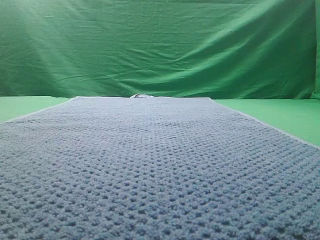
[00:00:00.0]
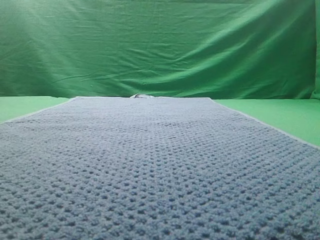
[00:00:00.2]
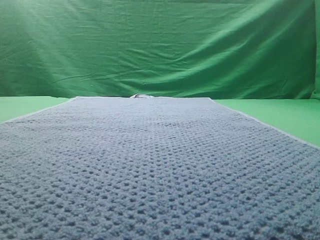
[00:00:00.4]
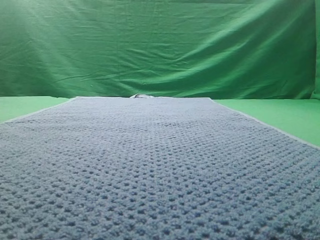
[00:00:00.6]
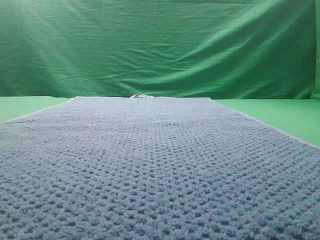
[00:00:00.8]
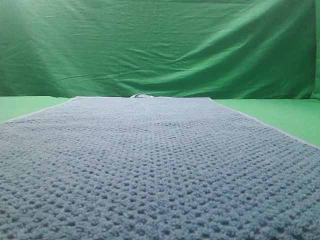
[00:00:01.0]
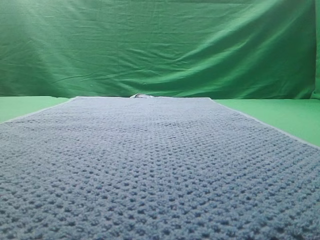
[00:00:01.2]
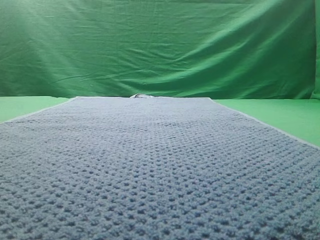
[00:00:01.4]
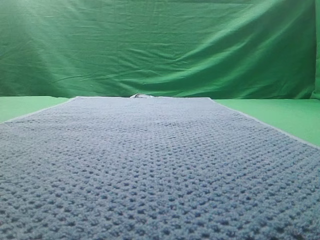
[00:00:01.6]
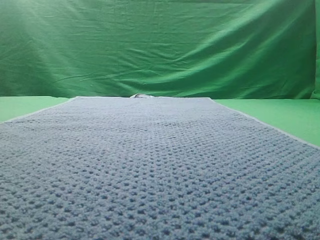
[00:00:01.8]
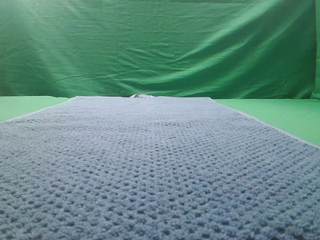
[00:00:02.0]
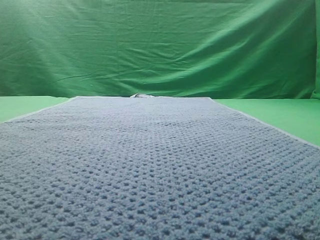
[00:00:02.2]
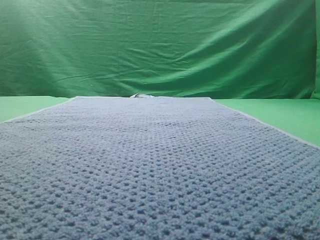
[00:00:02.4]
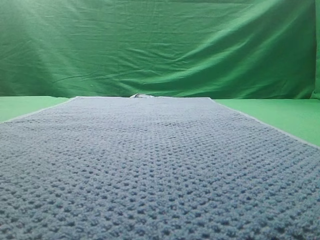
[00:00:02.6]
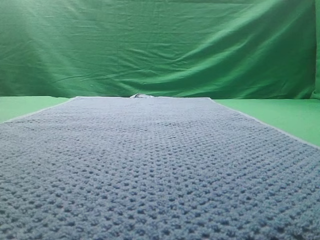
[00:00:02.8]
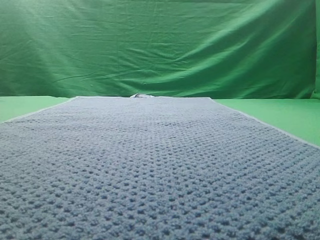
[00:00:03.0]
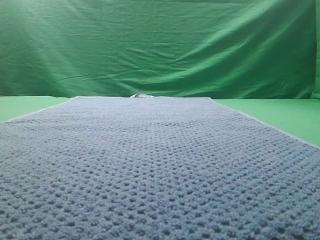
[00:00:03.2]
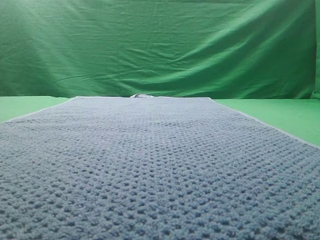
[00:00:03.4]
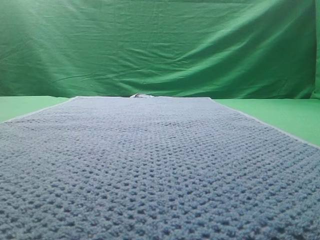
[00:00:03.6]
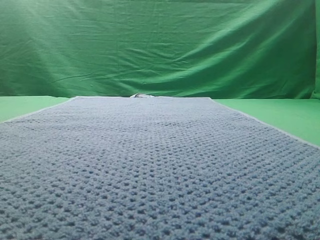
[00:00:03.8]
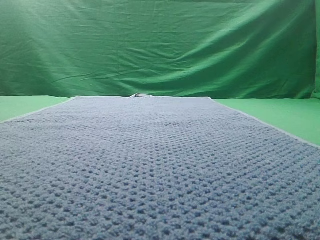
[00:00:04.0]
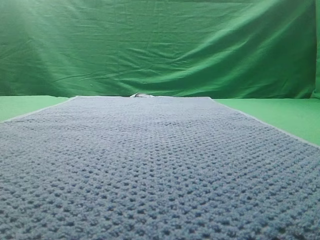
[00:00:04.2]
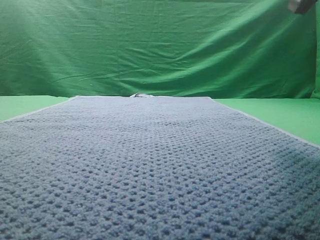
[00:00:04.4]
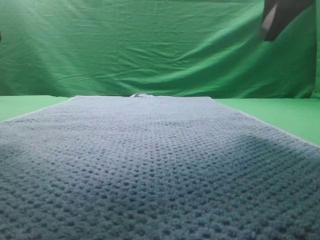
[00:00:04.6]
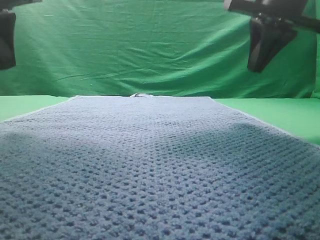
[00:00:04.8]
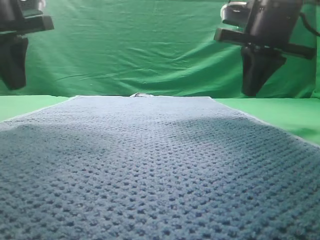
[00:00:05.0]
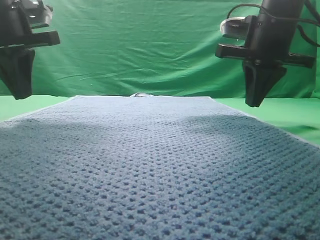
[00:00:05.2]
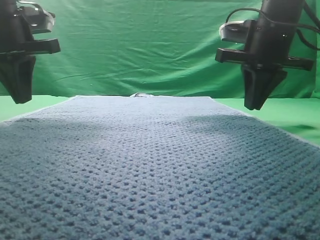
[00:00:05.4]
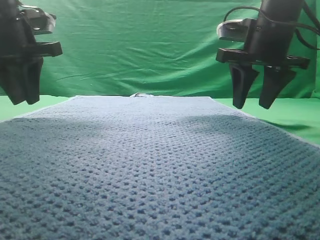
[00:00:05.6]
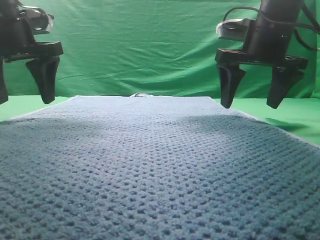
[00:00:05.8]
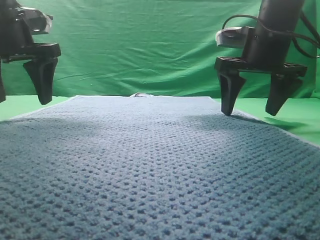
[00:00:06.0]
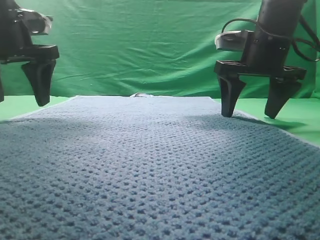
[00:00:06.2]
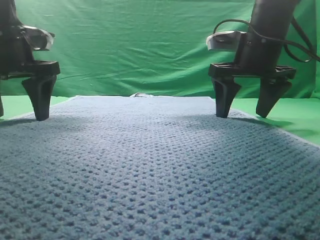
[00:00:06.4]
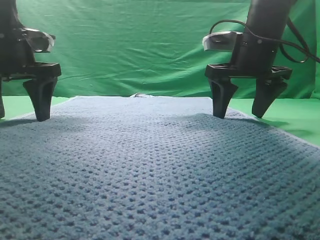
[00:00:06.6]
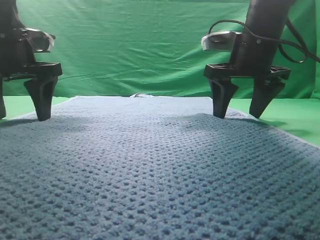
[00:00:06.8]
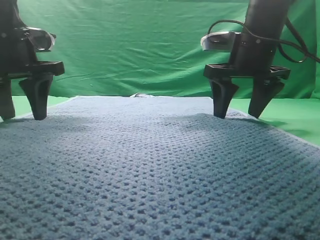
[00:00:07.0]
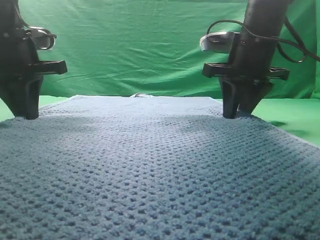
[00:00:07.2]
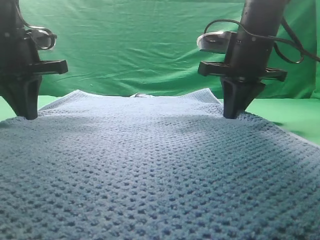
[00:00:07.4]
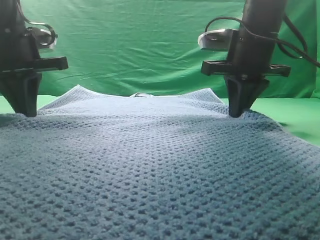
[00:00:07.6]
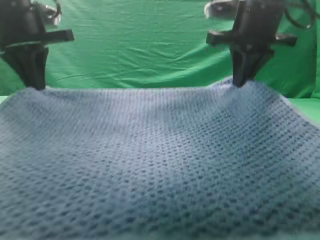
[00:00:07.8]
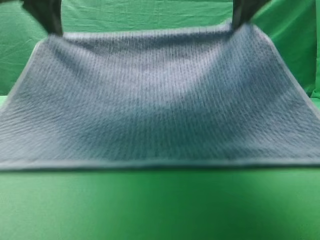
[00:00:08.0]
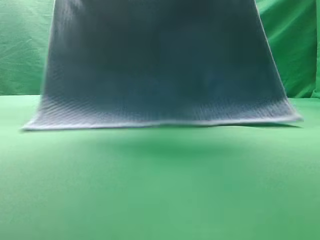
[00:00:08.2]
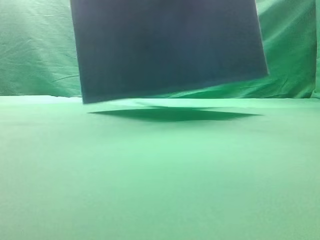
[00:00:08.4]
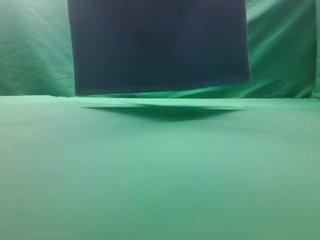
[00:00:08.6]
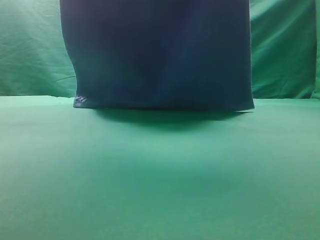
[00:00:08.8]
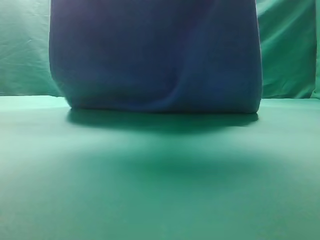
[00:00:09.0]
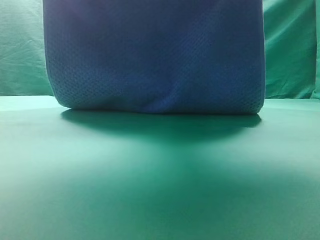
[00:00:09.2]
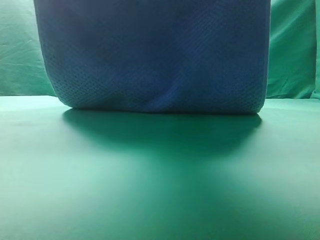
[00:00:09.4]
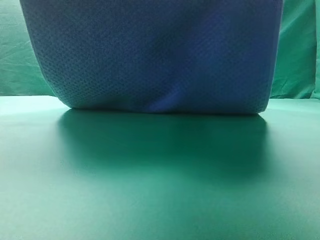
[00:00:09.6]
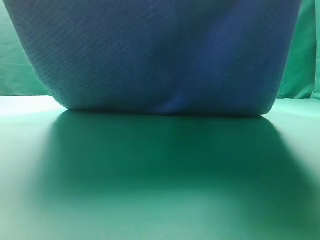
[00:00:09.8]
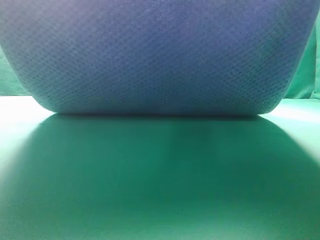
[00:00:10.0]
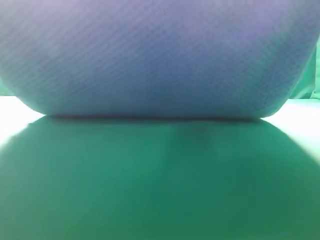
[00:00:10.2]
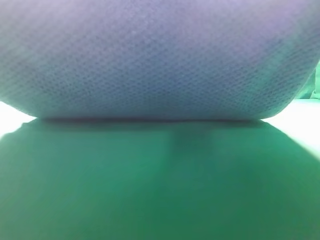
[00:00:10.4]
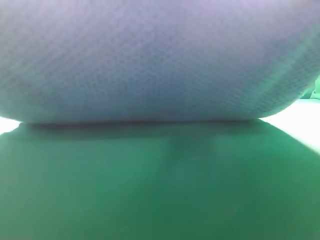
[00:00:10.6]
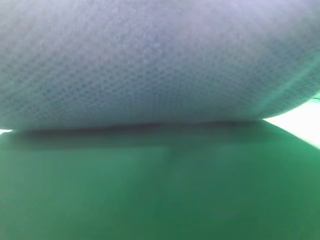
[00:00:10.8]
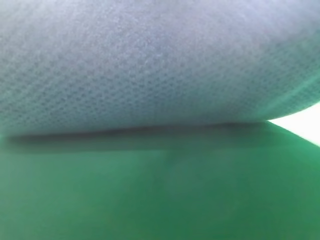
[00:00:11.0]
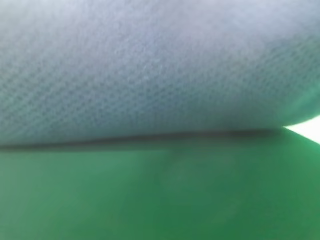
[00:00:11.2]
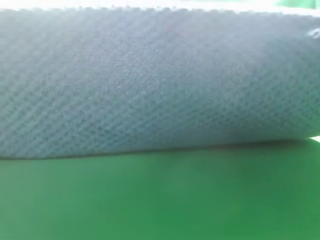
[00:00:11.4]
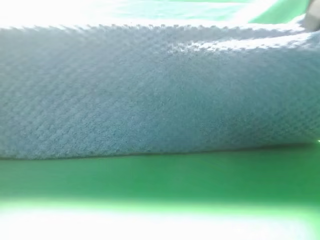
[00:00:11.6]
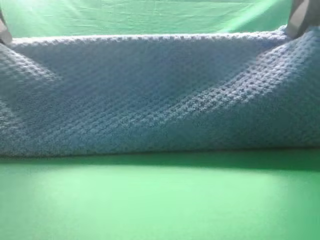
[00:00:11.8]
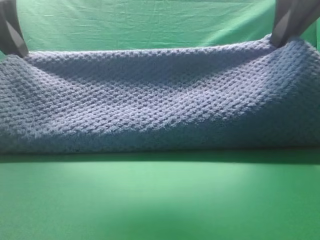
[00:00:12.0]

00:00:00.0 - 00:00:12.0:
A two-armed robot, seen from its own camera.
Task of the whole recording: fold the towel on the table twice.
Step, 00:00:00.0 - 00:00:08.6: pick up the towel with two arm.

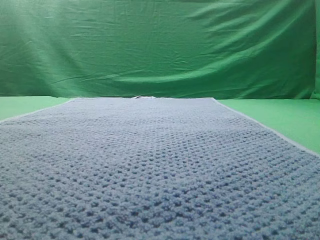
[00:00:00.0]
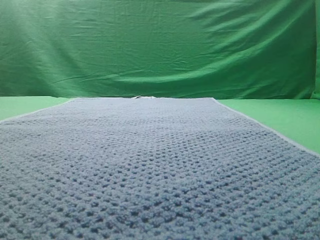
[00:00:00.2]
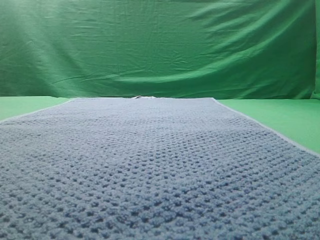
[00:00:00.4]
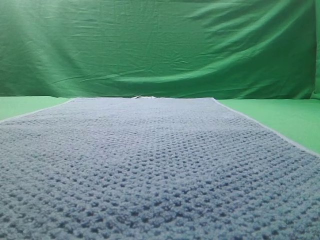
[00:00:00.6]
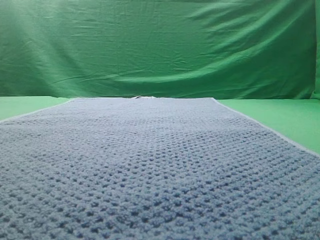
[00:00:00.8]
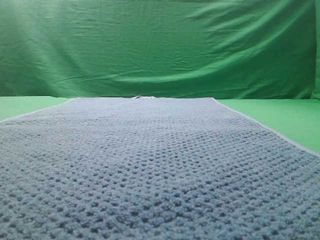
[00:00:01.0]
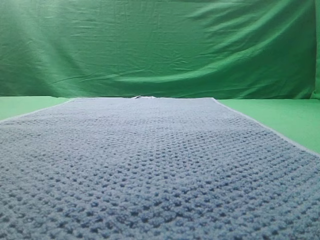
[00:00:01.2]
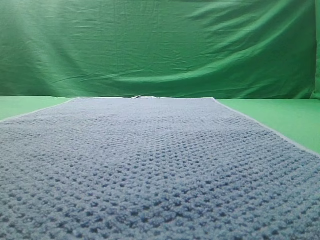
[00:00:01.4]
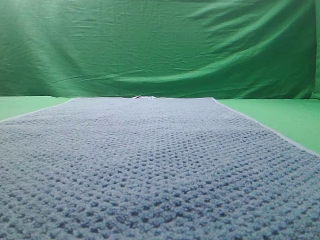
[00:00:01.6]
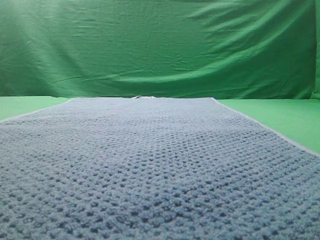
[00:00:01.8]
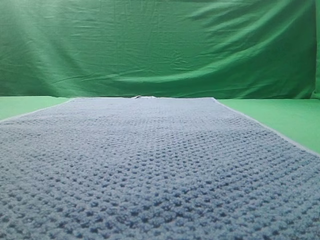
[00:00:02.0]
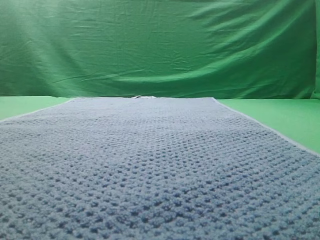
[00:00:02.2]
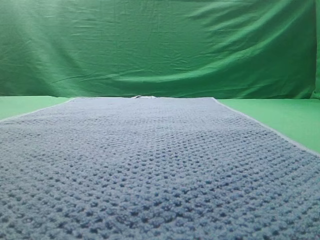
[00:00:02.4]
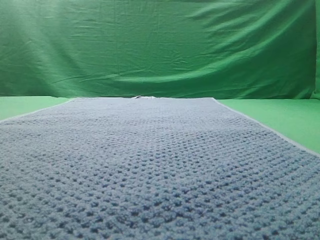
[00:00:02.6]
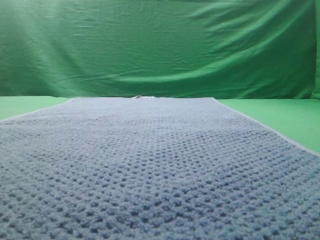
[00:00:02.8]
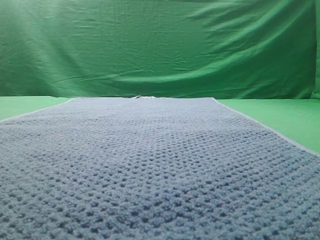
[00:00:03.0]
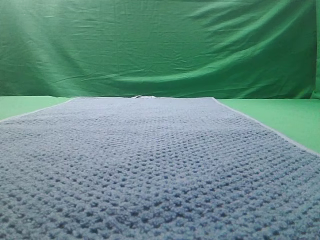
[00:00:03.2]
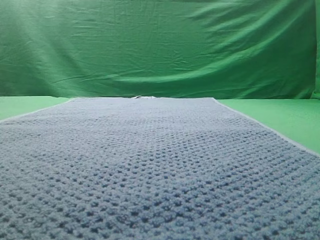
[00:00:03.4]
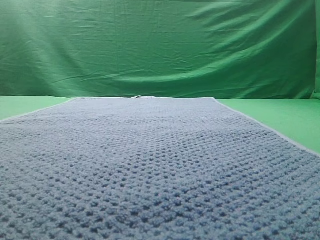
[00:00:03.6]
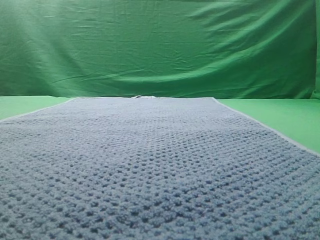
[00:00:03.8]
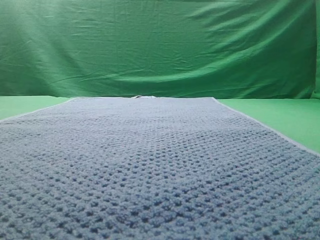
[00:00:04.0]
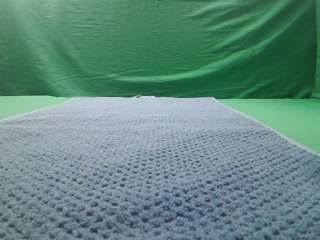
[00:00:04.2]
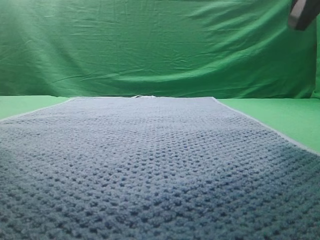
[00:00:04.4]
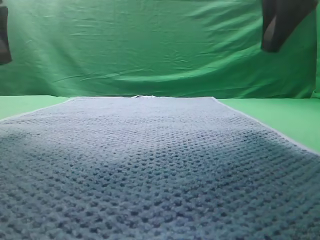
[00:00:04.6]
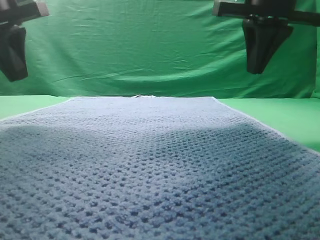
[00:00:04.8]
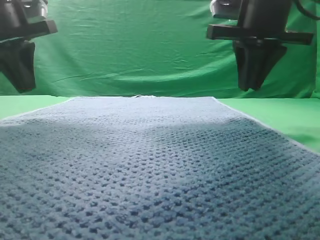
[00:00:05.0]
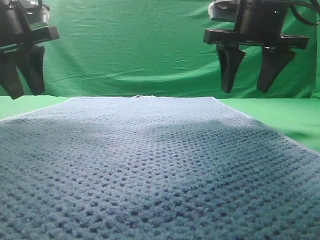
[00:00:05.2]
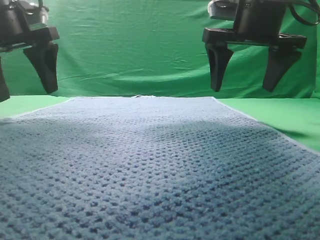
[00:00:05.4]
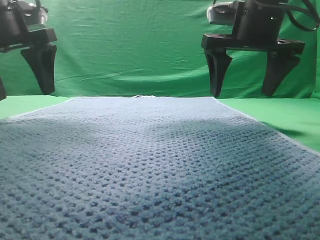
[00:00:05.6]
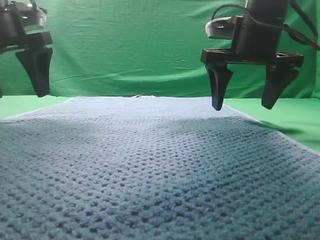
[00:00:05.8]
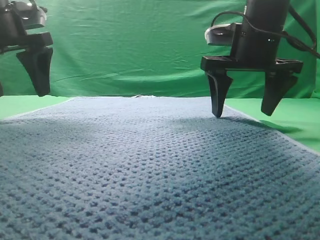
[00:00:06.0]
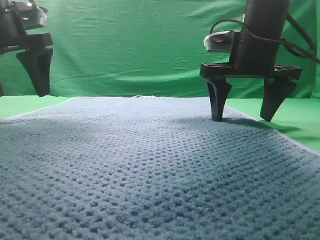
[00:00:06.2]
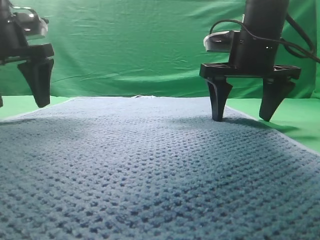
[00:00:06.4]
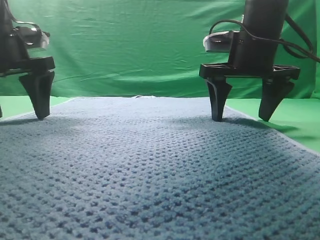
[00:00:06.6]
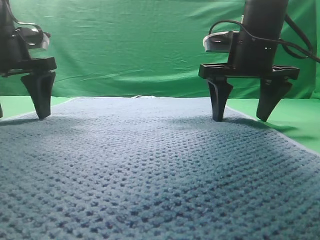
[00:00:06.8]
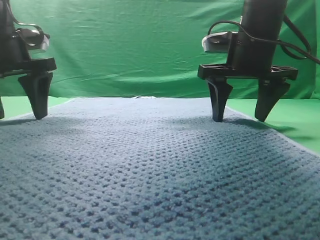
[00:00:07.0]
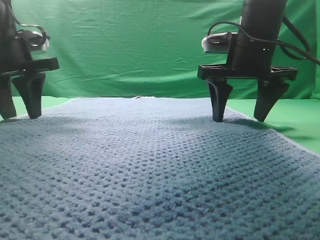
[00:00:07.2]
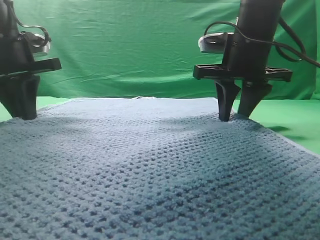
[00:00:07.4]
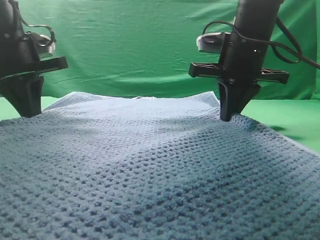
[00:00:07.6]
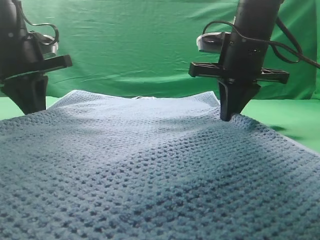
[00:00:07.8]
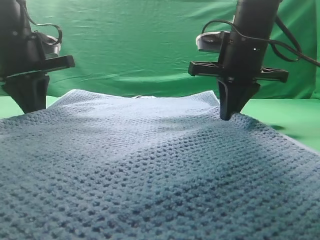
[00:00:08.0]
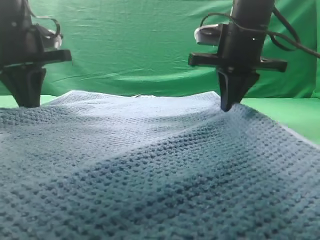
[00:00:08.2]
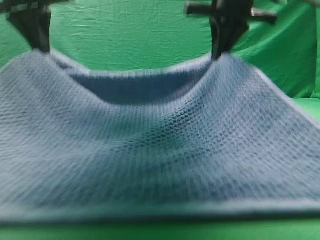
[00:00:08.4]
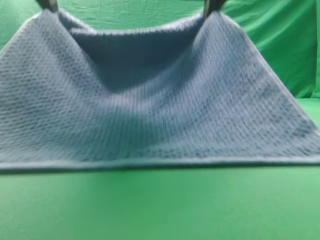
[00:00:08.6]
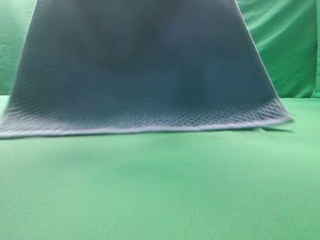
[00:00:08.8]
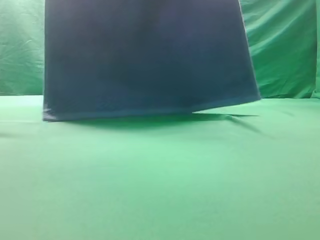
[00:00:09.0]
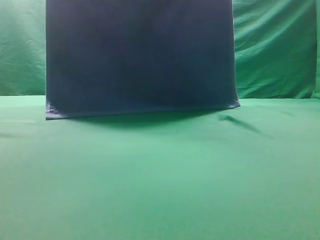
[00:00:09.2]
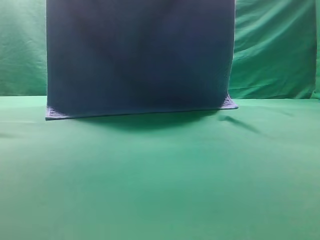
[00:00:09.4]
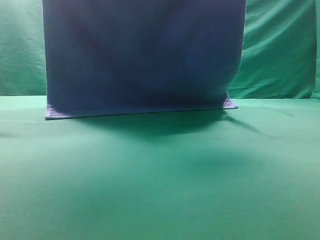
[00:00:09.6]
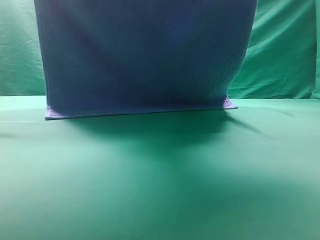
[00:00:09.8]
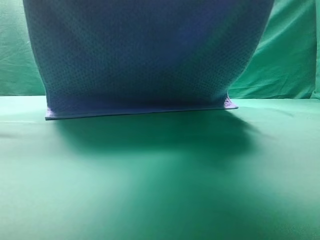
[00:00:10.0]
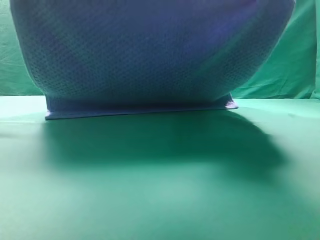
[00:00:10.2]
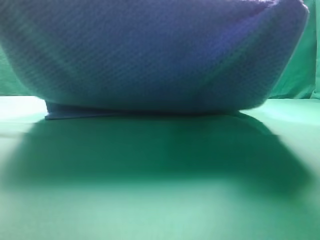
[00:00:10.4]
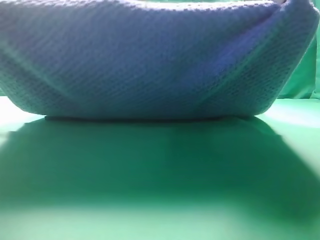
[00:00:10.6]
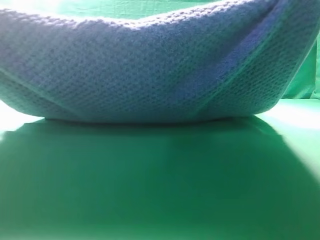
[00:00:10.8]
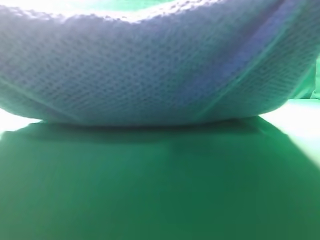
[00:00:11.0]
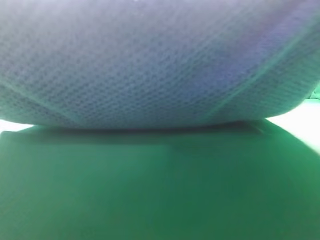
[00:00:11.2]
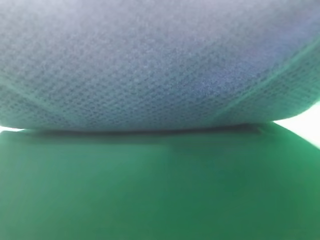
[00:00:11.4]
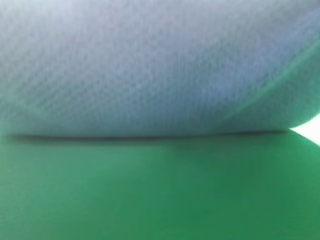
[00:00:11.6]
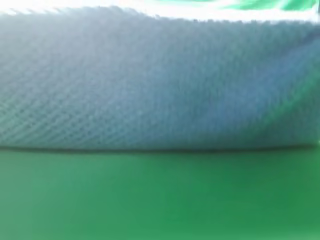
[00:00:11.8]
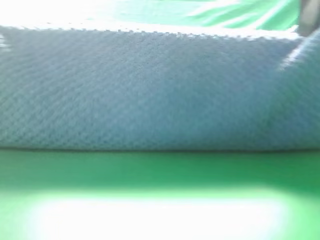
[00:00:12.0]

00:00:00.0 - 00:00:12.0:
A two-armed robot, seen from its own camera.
Task of the whole recording: fold the towel on the table twice.
Step, 00:00:00.0 - 00:00:09.0: pick up the towel with two arm.
